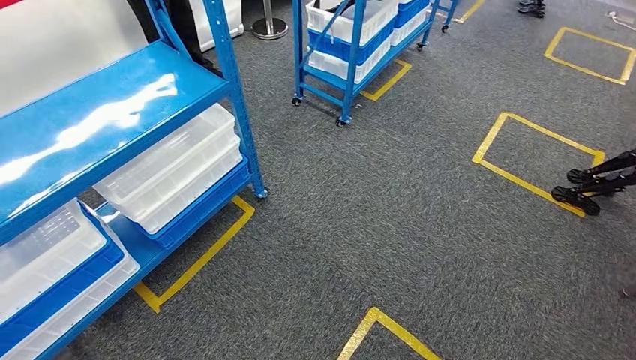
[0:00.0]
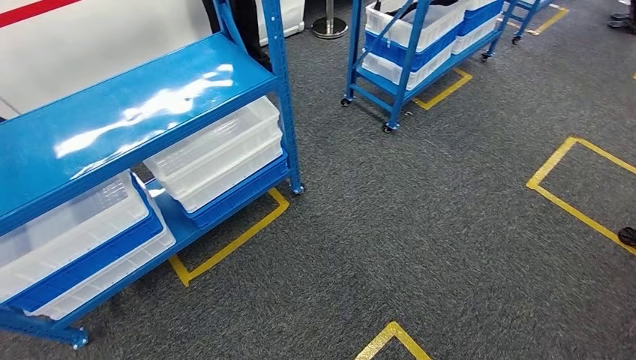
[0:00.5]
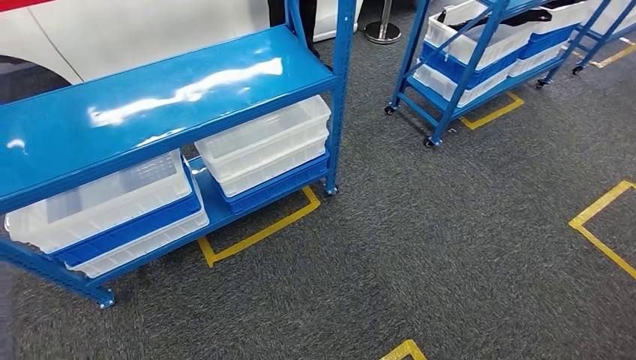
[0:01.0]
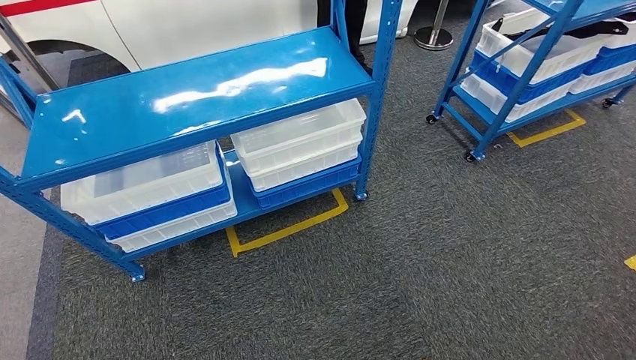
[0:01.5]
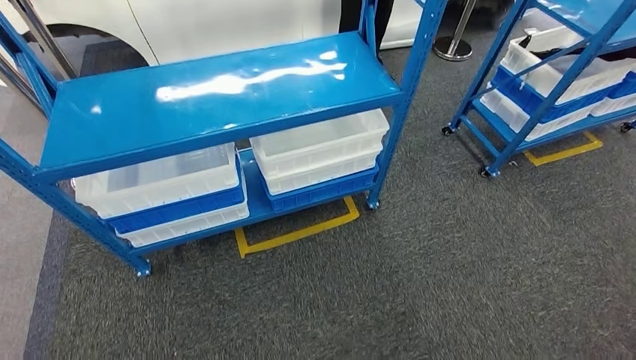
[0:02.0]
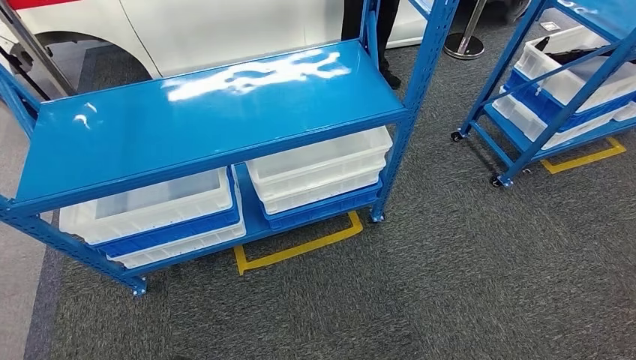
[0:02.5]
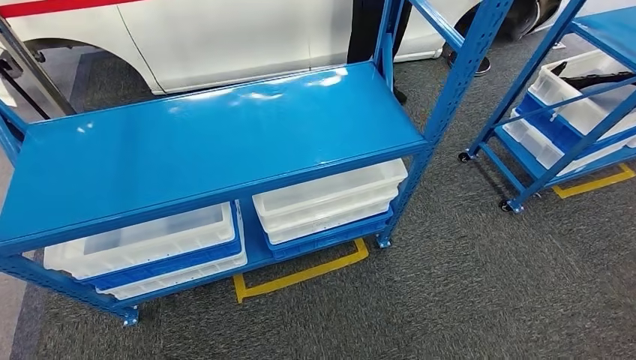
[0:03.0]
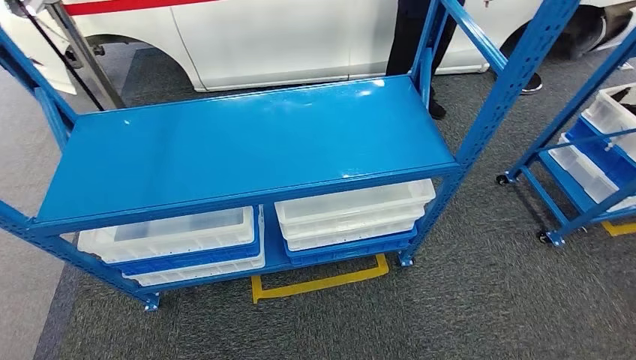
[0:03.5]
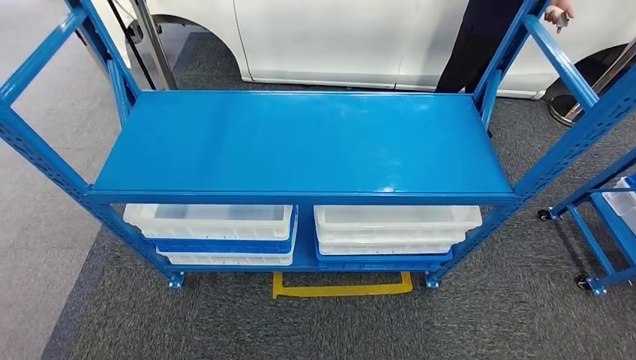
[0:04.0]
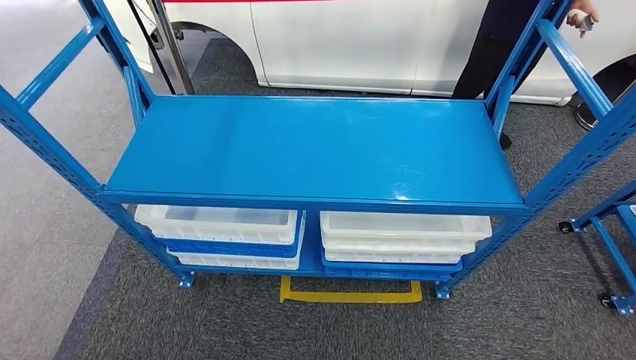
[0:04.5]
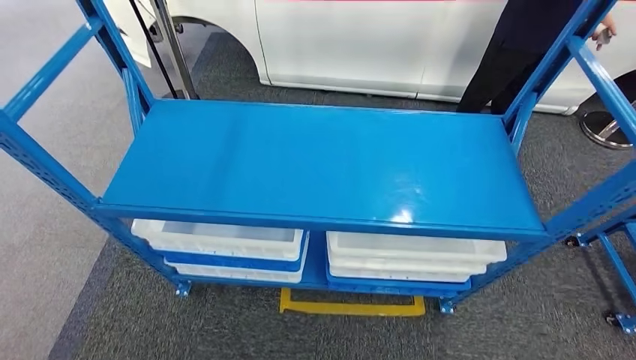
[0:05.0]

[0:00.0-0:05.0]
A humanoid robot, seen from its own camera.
Step, 0:00.0 to 0:05.0: Move to the initial position of the shelf.

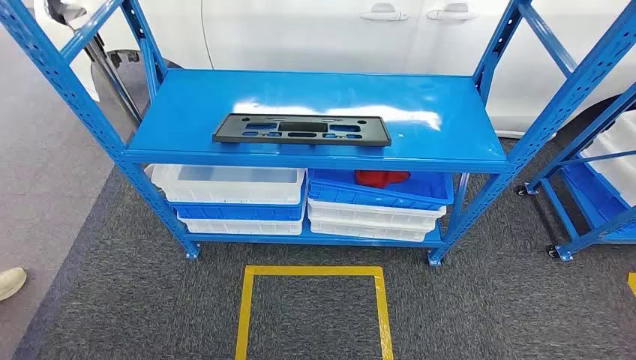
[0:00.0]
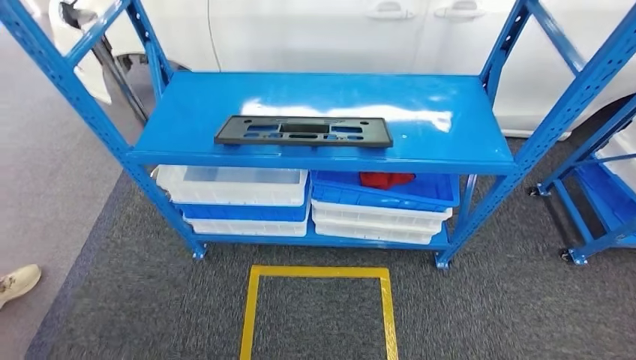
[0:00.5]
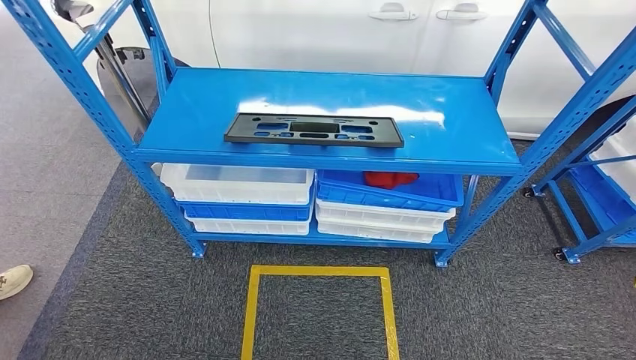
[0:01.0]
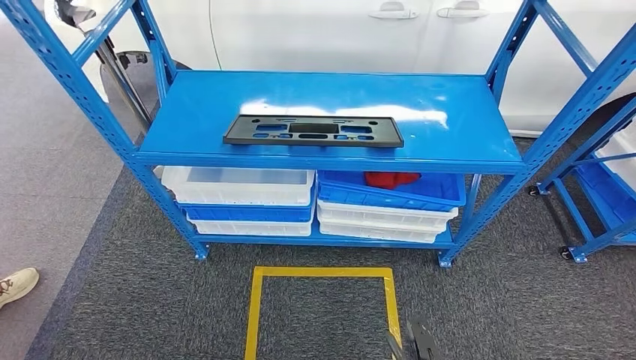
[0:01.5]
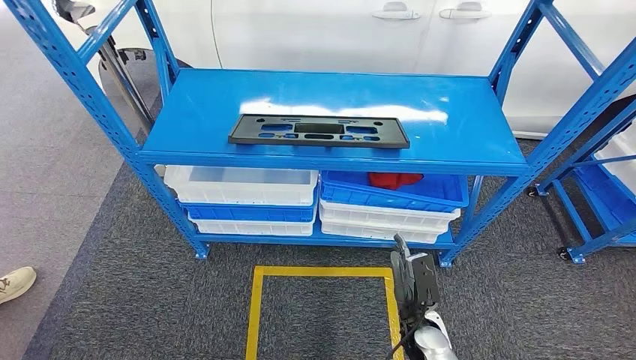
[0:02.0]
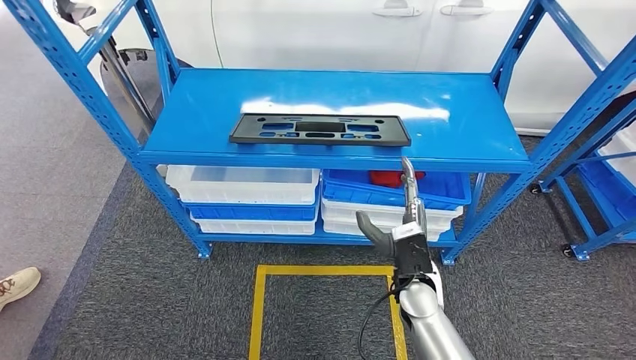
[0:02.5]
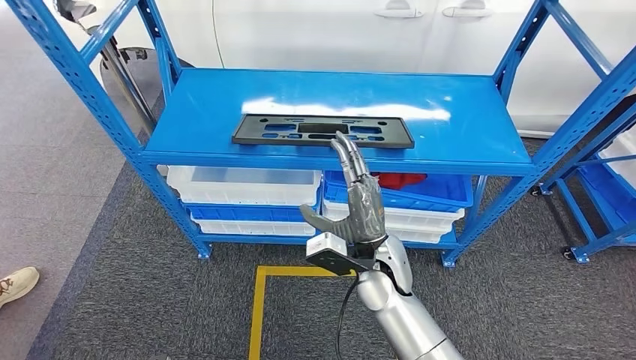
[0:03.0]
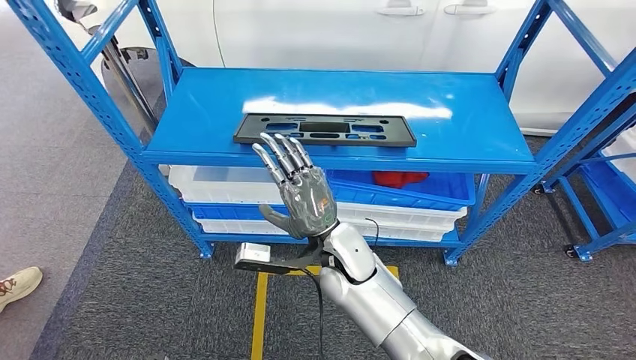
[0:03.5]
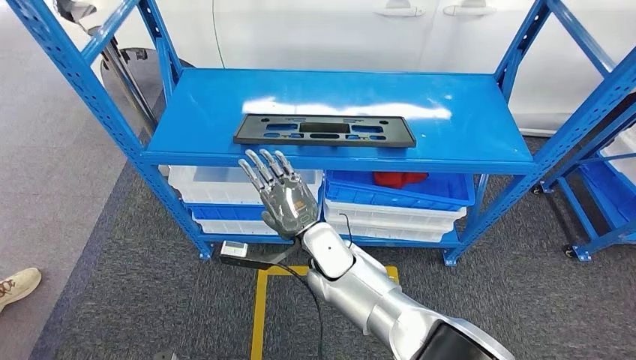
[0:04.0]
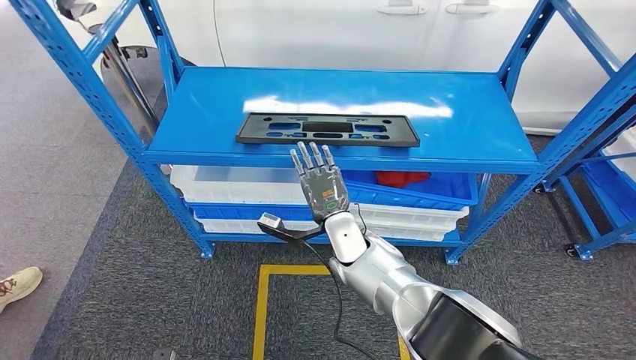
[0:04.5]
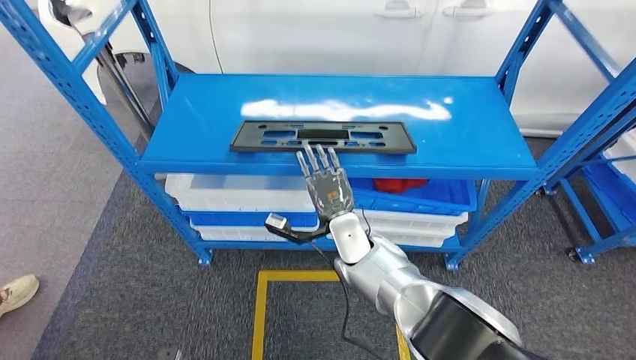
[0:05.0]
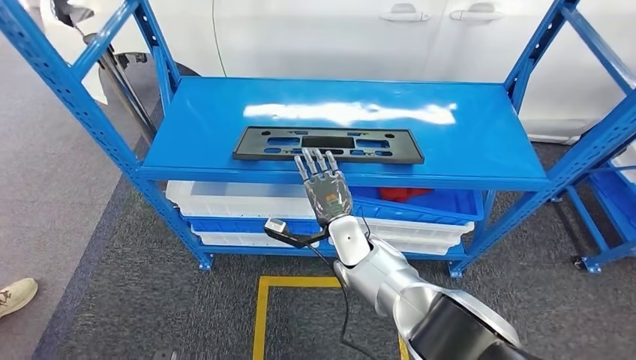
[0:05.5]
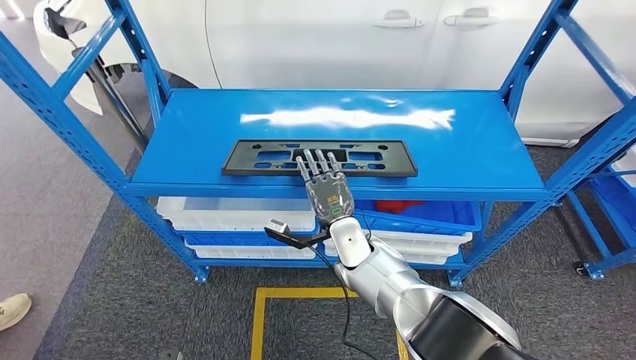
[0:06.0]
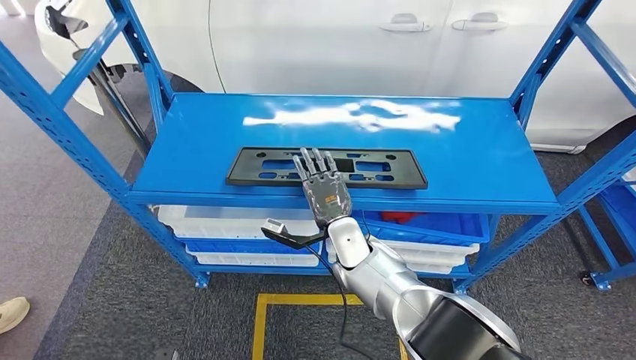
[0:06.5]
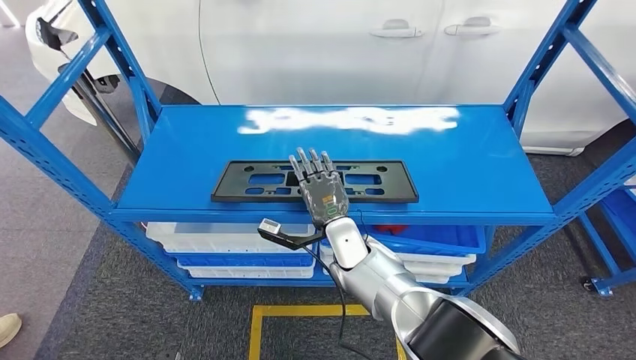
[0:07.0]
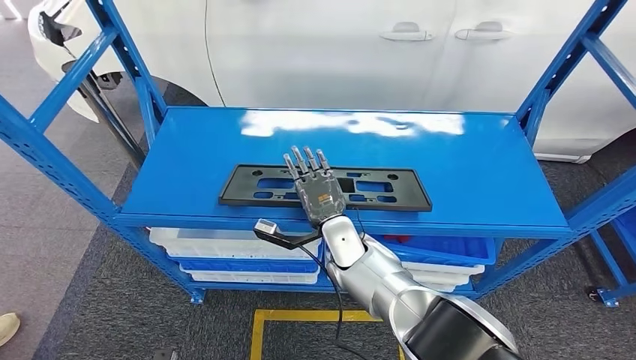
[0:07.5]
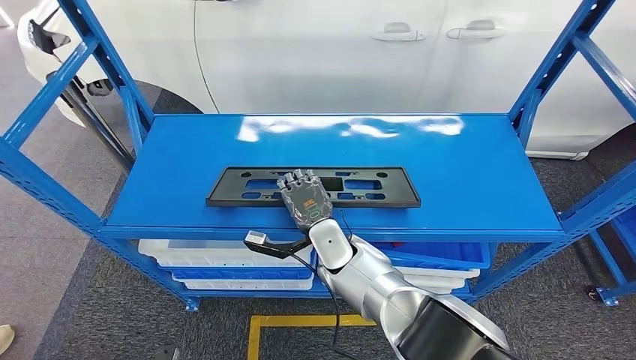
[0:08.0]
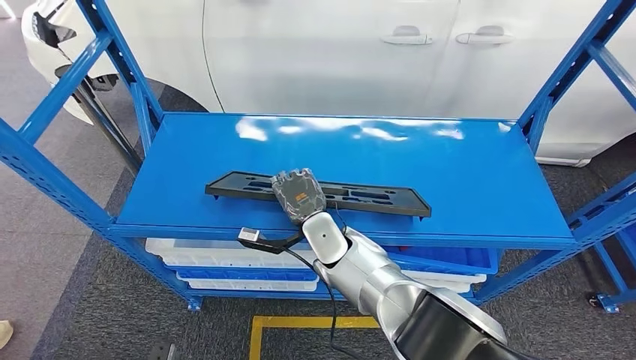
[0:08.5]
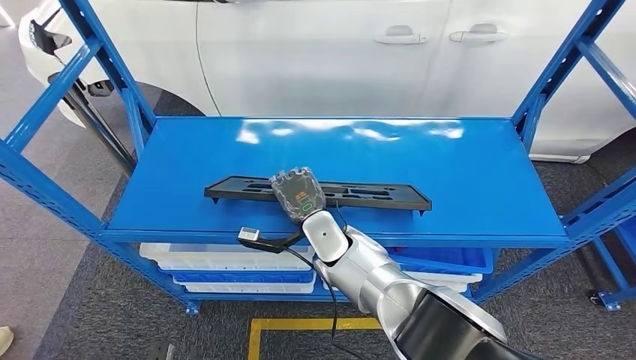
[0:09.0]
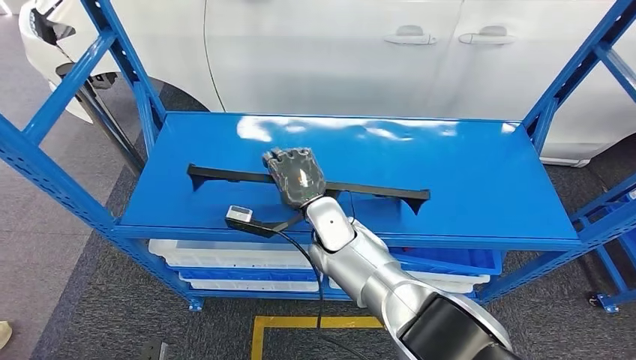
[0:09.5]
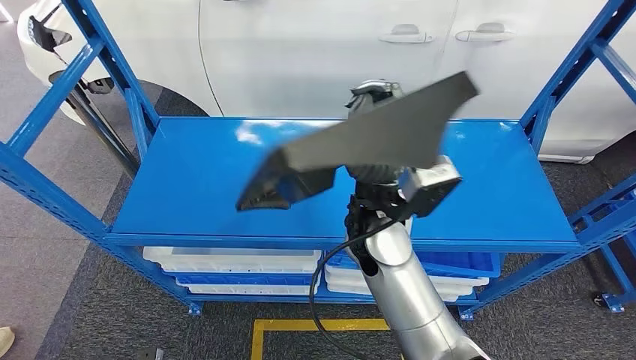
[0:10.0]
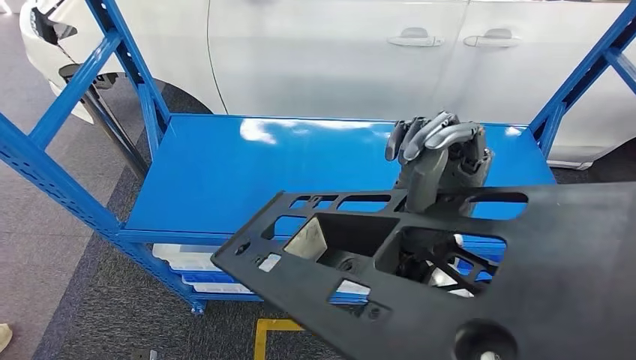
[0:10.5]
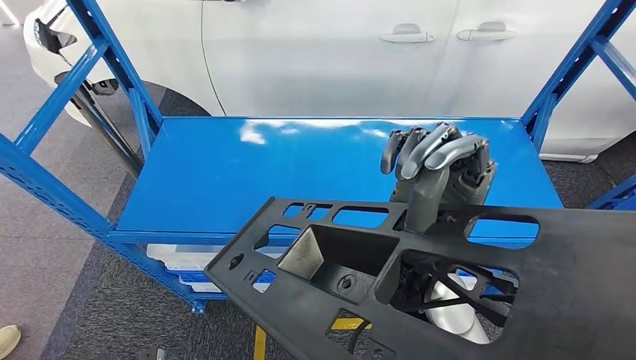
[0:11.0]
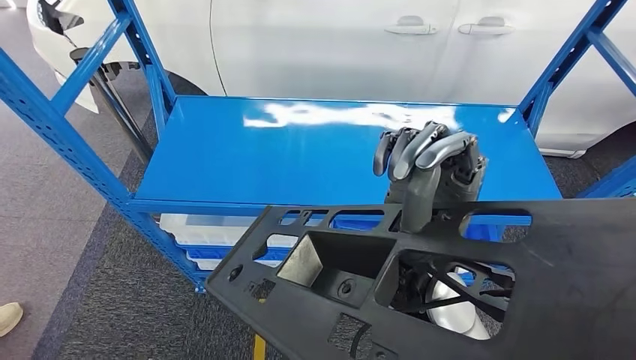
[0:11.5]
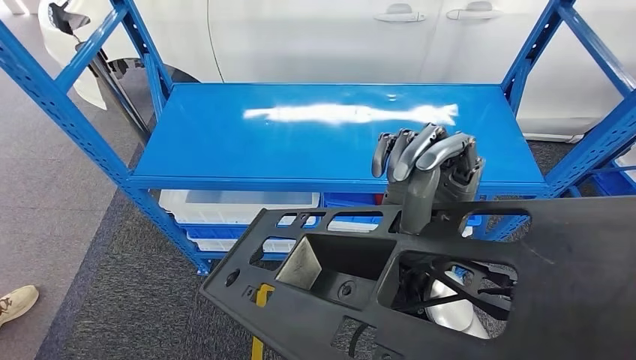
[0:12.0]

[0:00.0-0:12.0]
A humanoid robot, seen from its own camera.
Step, 0:00.0 to 0:09.5: Pick up the large material from the shelf.
0:02.0 to 0:04.0: The right hand moves to the left, upward and forward, some 30 cm.

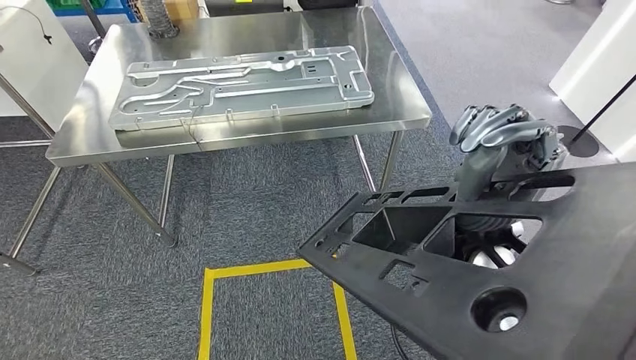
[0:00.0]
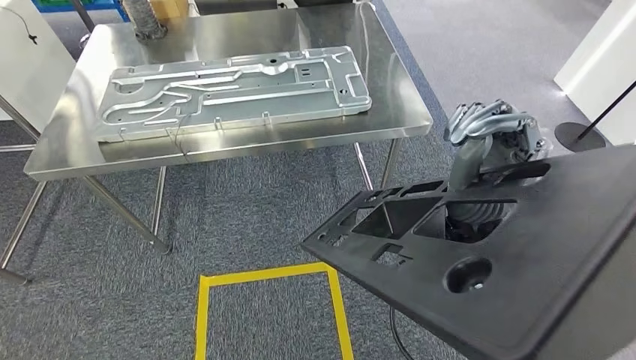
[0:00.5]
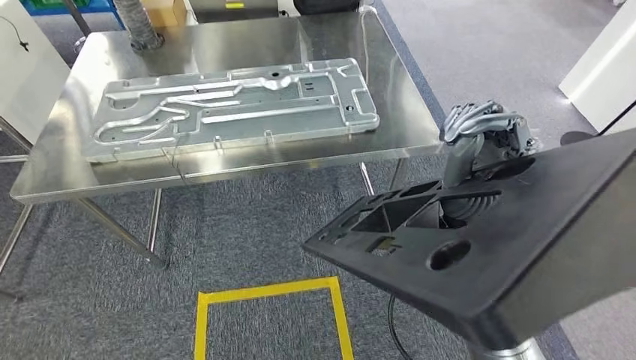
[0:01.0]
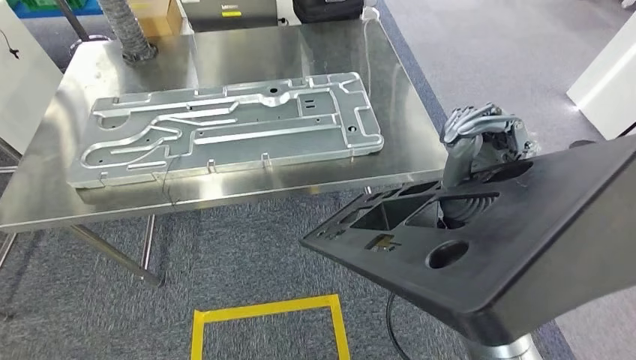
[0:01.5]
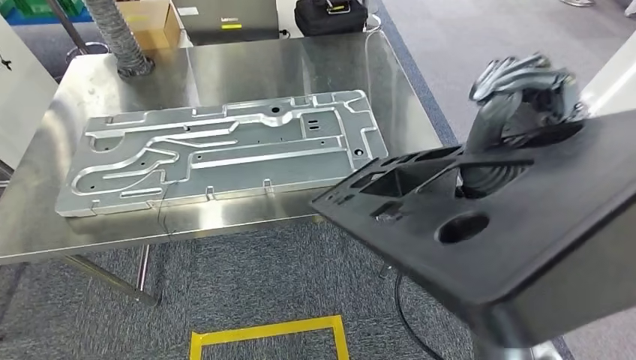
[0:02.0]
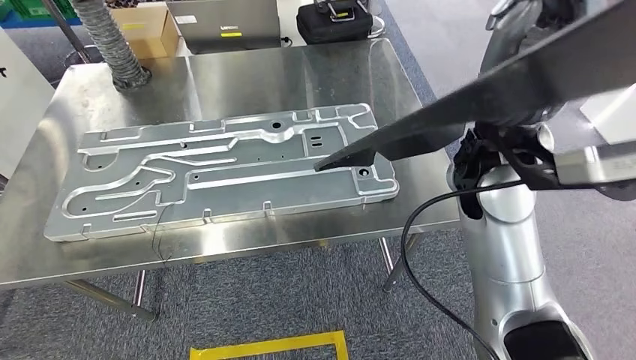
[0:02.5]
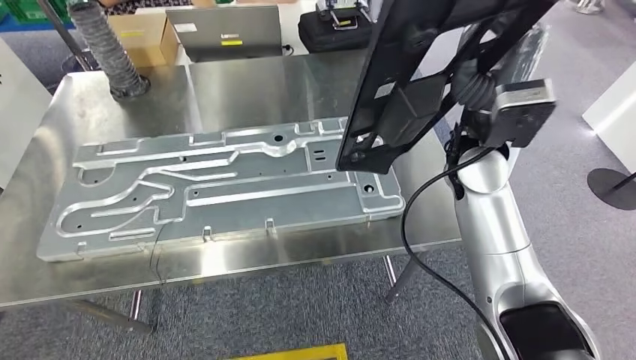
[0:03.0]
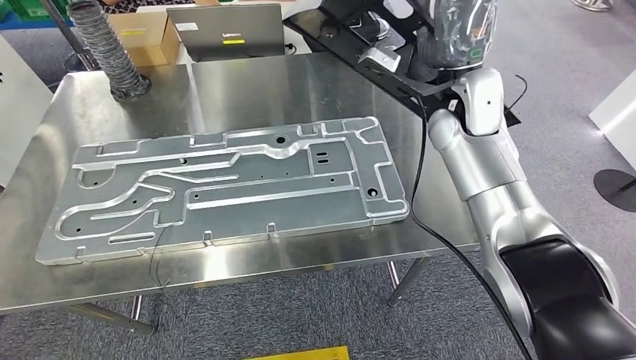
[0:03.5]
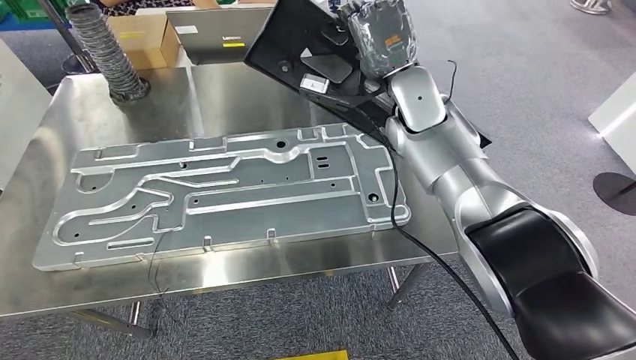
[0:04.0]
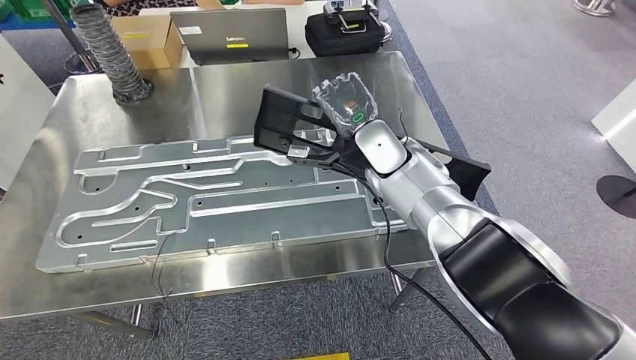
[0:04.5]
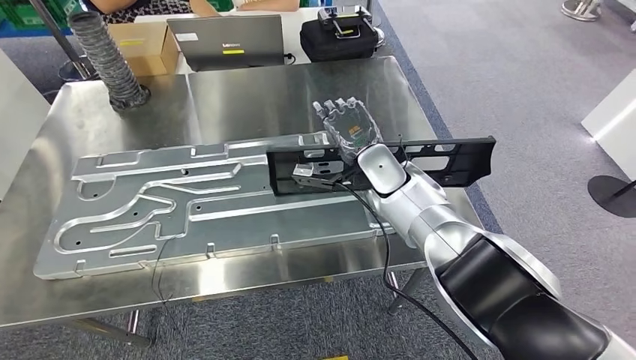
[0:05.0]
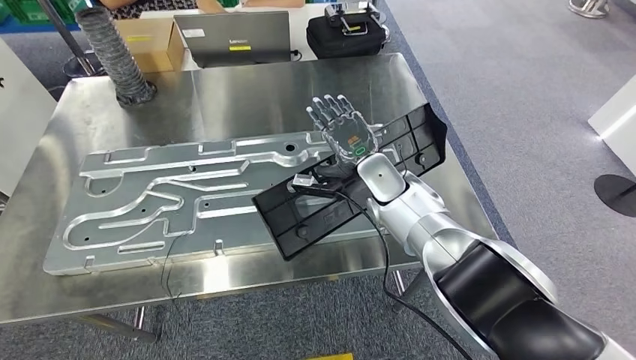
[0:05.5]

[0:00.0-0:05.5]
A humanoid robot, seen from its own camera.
Step, 0:00.0 to 0:03.0: Move the large material to the workbench.
